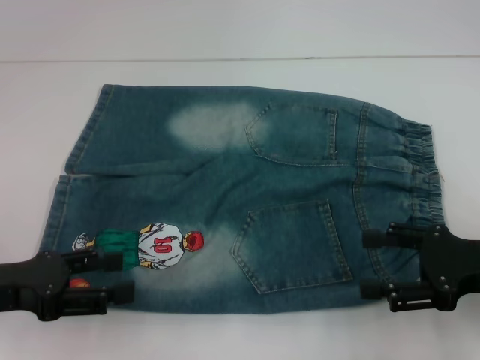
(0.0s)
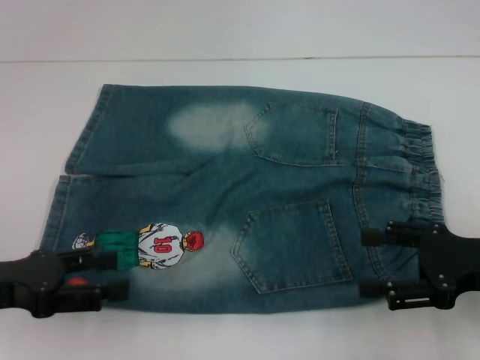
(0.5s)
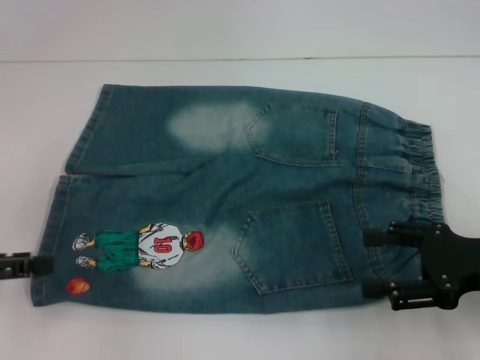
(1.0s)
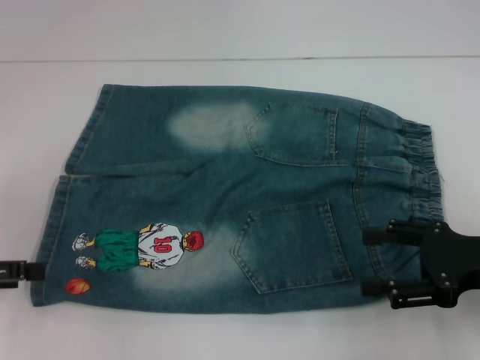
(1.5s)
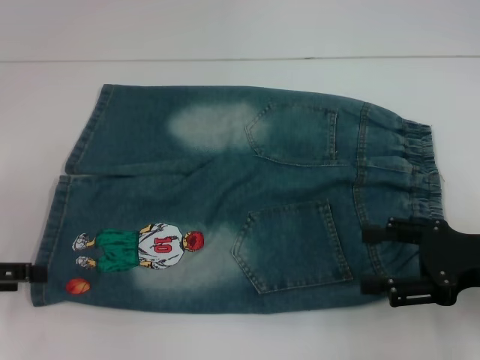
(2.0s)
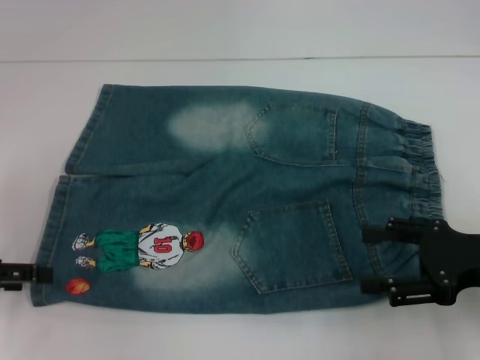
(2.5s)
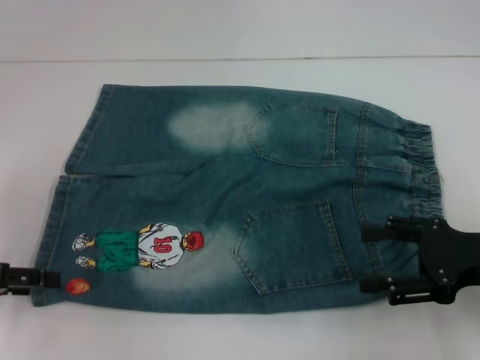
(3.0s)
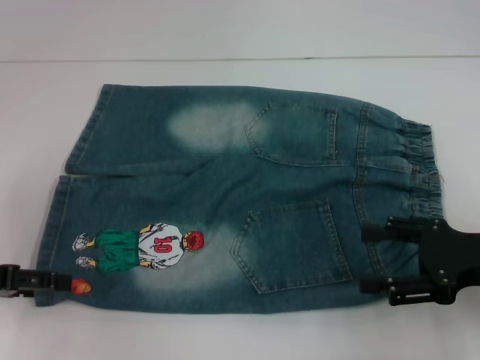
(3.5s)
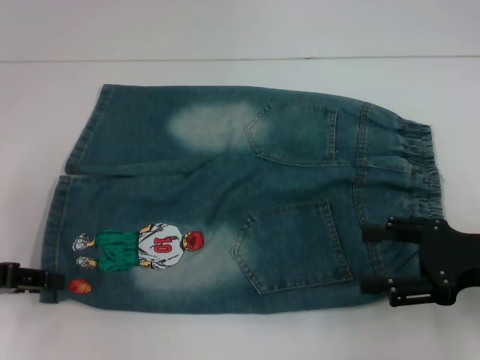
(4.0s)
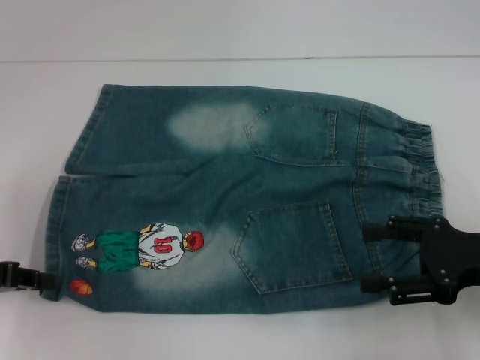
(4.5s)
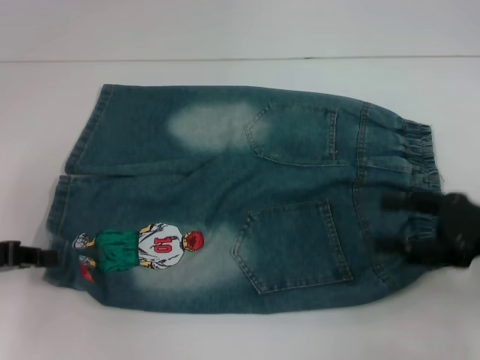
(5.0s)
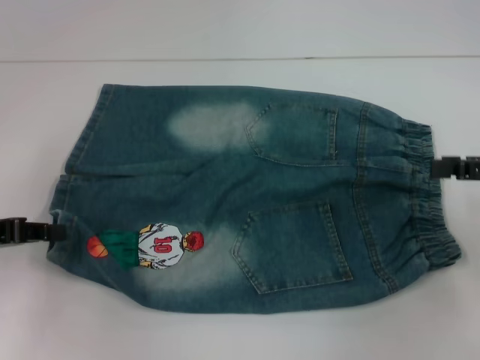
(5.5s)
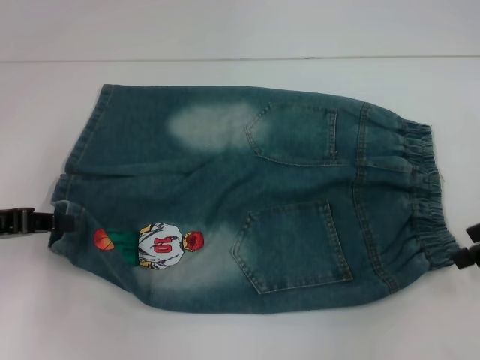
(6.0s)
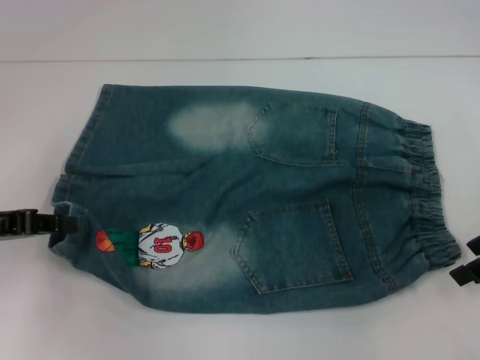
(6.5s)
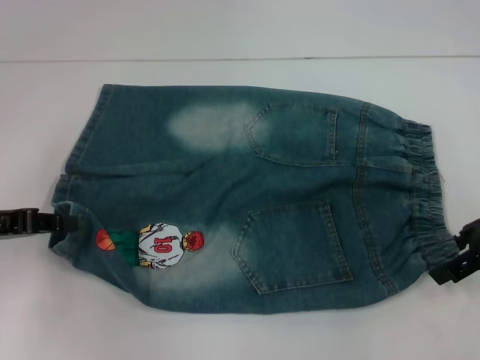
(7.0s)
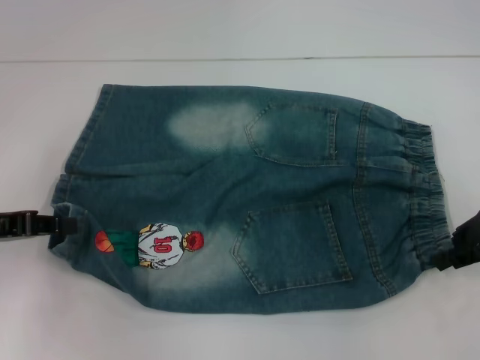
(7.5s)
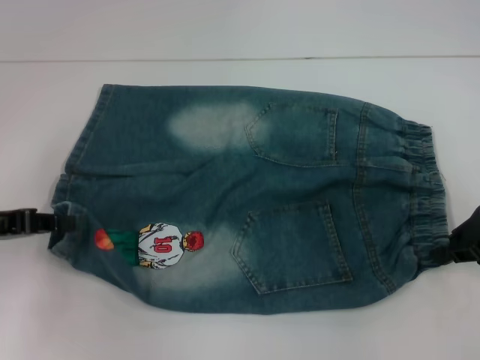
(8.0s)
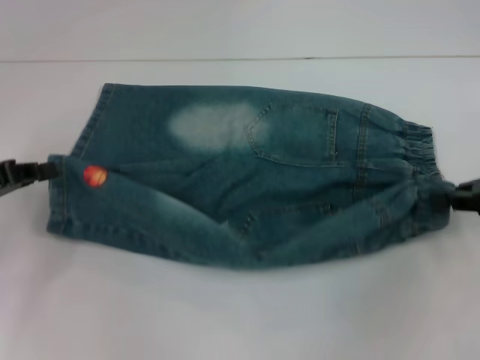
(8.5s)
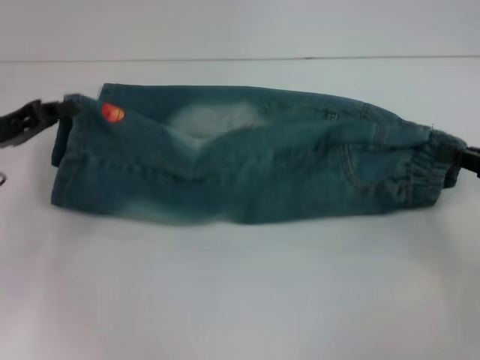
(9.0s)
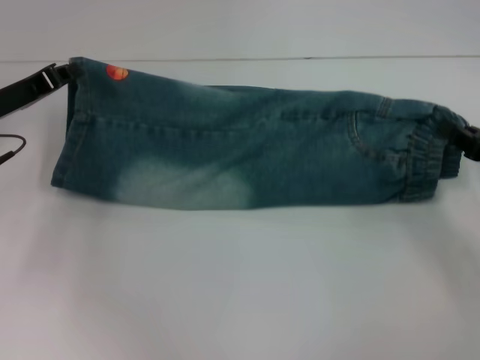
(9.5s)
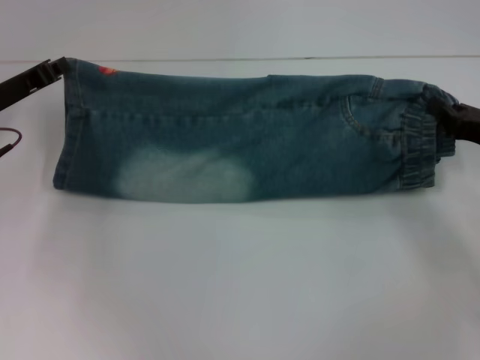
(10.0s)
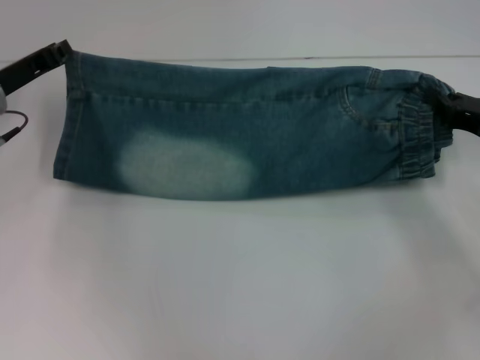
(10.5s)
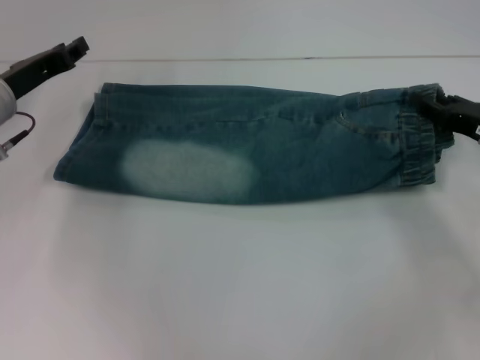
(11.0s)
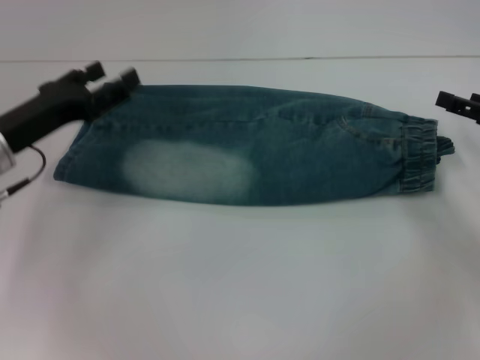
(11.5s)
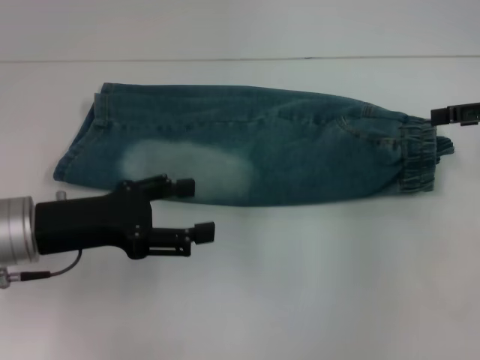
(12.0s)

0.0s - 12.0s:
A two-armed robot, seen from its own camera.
Step, 0.0s - 4.5s: Grab the lower left pant leg with your left hand.
Step, 5.0s - 7.5s: Hold the lower right waistband with your right hand.
Step, 8.5s - 10.5s: Fold upward with your left hand.
0.0s - 2.0s: The left gripper is displaced to the left by approximately 5 cm.
4.0s - 6.0s: The left gripper closes up. The right gripper travels forward, to the right and upward by about 10 cm.
6.0s - 8.0s: The right gripper closes.
8.0s - 10.0s: The right gripper heads downward, covering approximately 5 cm. Meanwhile the left gripper travels forward by approximately 10 cm.
10.0s - 12.0s: The left gripper shifts some 10 cm backward and to the right, and opens. The right gripper moves upward, approximately 10 cm, and opens its fingers.

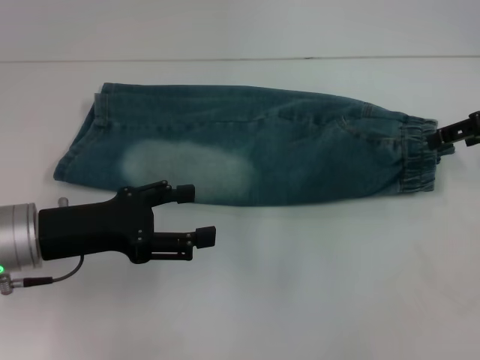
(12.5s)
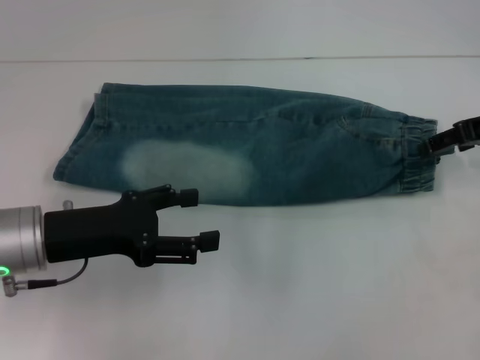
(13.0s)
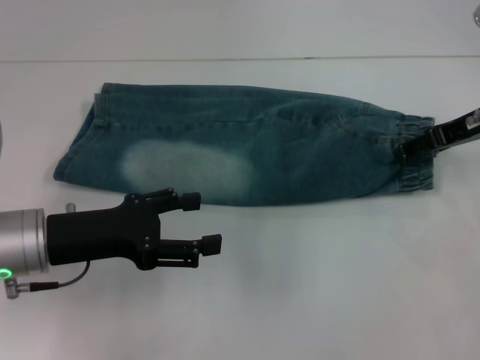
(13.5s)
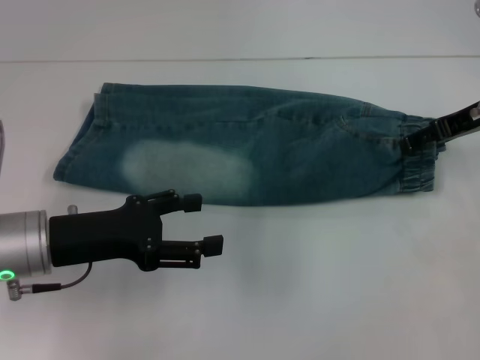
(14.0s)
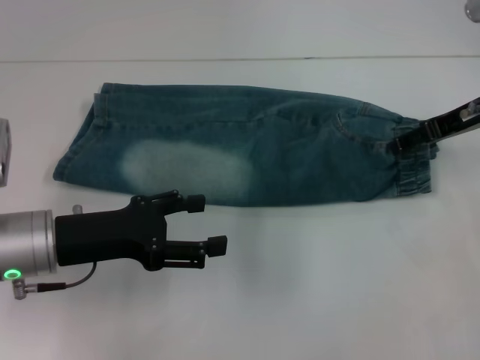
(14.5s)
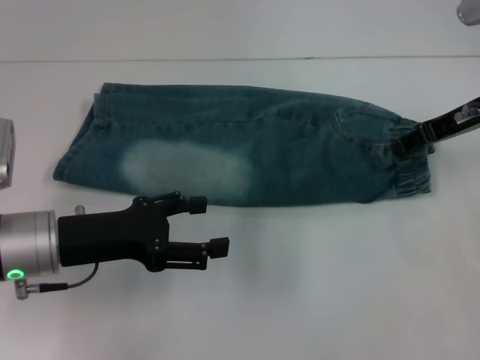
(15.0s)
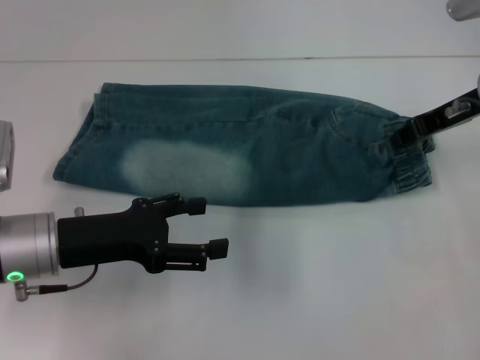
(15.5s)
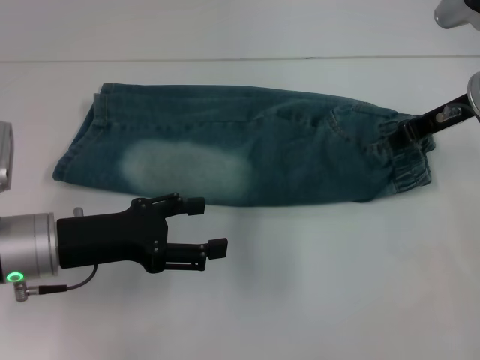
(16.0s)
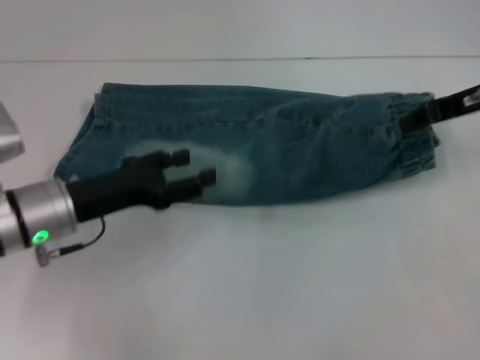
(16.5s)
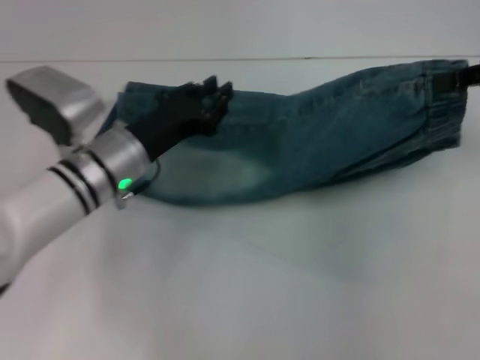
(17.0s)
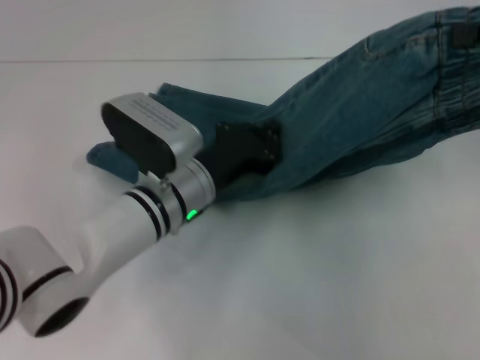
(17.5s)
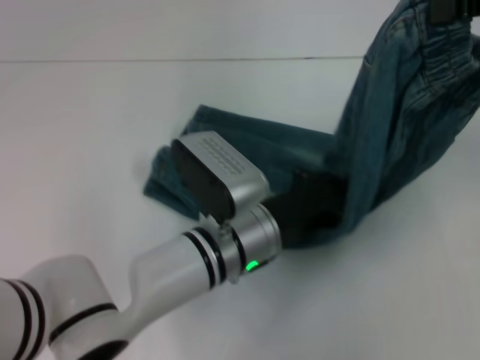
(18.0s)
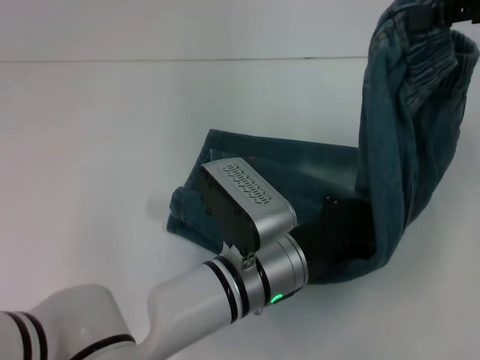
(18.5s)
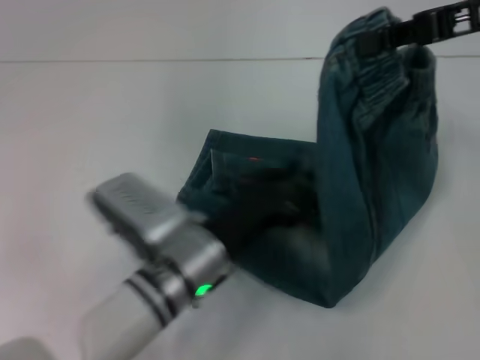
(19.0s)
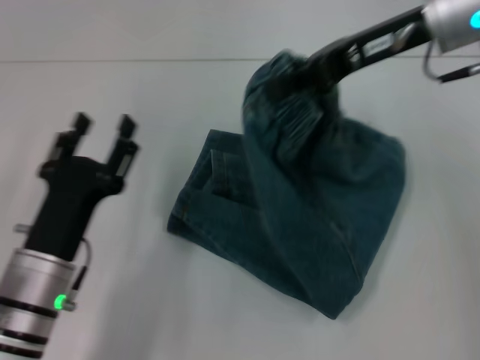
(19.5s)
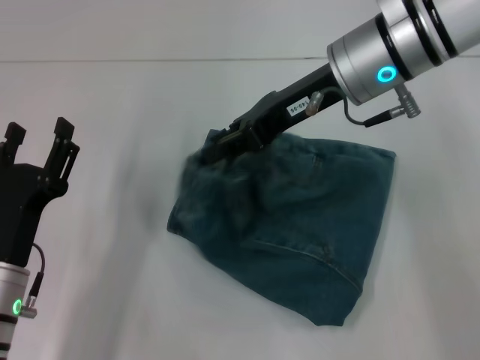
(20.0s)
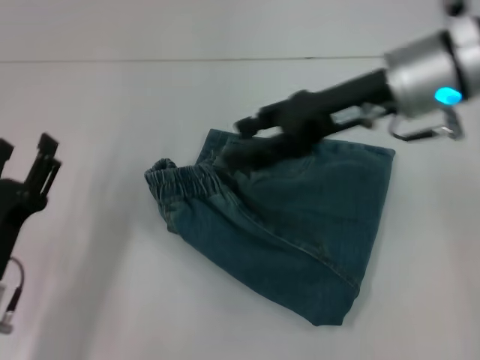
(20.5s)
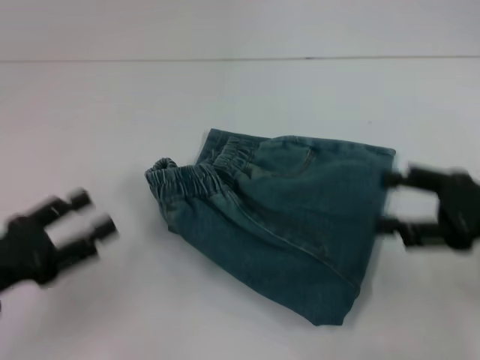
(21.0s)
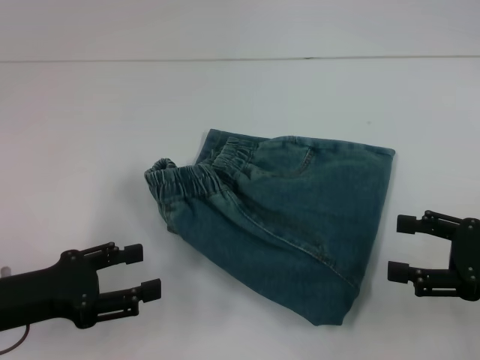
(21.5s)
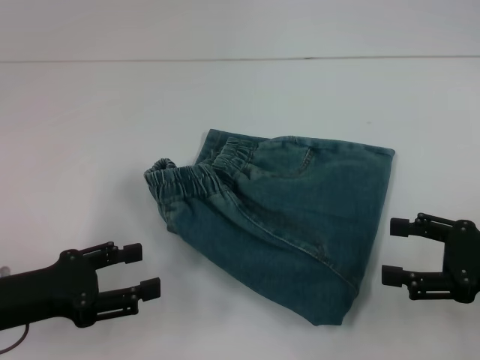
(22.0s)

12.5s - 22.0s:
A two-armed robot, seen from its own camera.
Step, 12.5s - 16.0s: Grab the waistband with your right hand.
Step, 16.5s - 18.5s: Press the middle of the pants with your left hand.
Step, 19.0s - 20.0s: Fold to the left with your right hand.
12.5s - 14.5s: The right gripper moves some 5 cm.
14.5s - 16.5s: The right gripper closes.
16.5s - 18.0s: The right gripper moves upward and backward, roughly 15 cm. Meanwhile the left gripper goes approximately 20 cm to the right, and closes up.
18.0s - 20.0s: Both grippers travel together to the left, about 20 cm. The left gripper opens.
20.0s - 22.0s: The right gripper travels to the right, backward and downward by some 30 cm, and opens its fingers, while the left gripper heads to the left, covering some 5 cm.

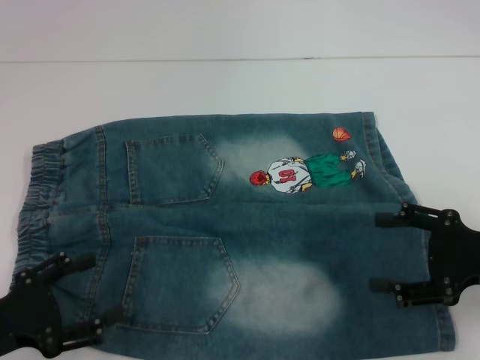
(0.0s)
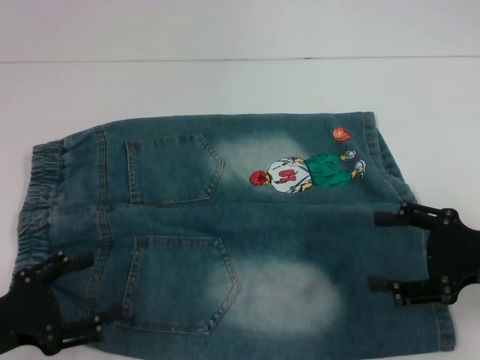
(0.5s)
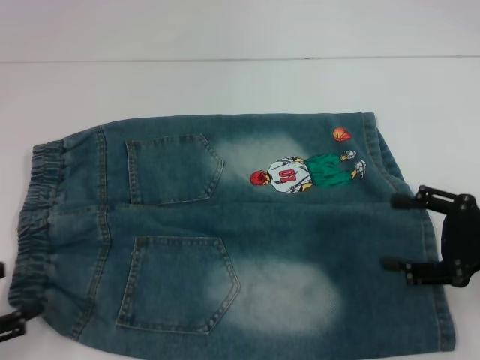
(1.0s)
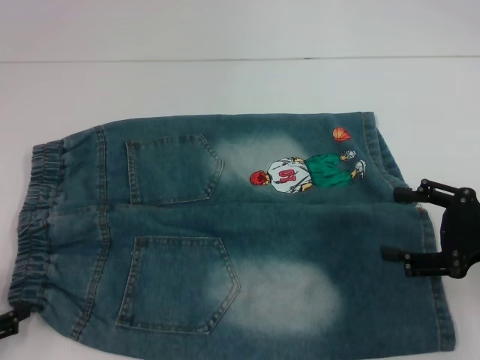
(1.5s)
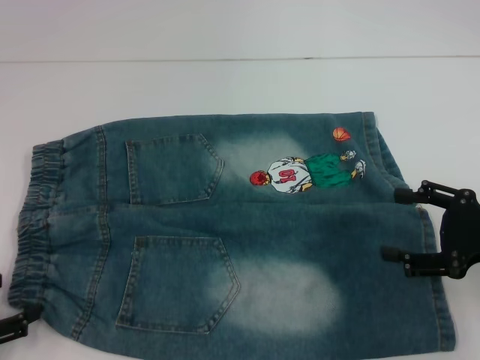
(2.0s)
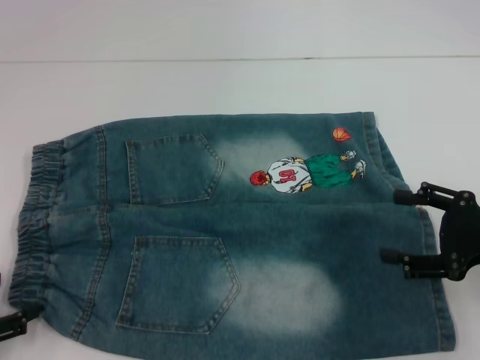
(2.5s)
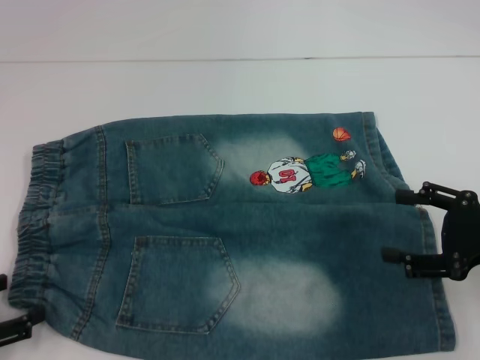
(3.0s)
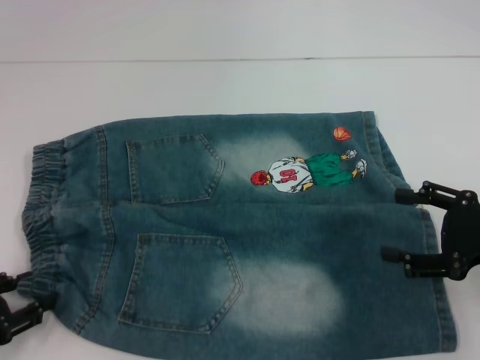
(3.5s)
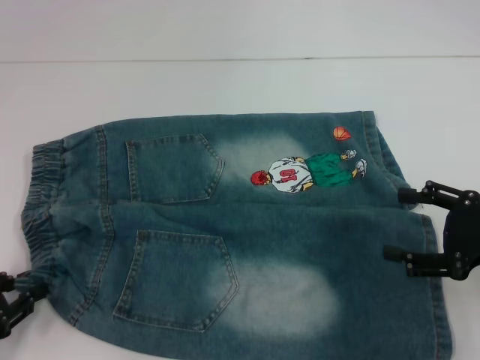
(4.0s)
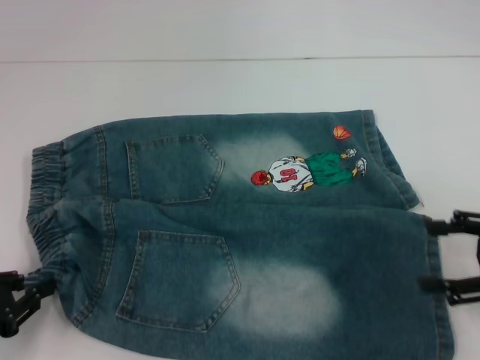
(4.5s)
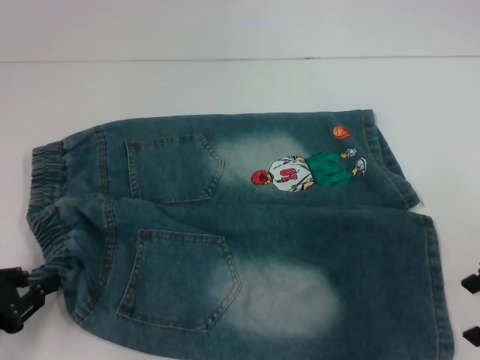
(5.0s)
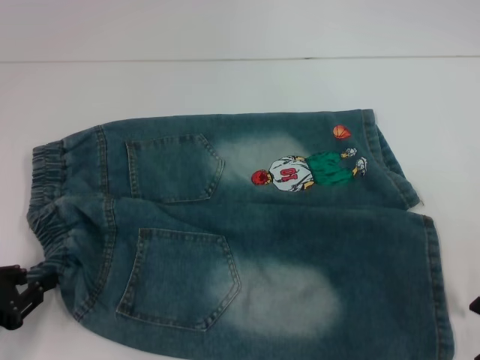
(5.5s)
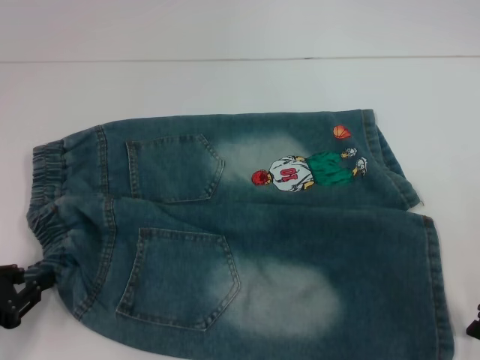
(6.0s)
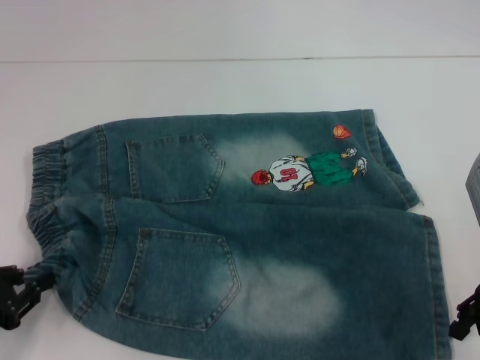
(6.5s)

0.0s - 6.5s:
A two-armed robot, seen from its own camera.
Step, 0.0s - 4.0s: Hold the lower left waistband with your left hand.
0.0s - 2.0s: The left gripper goes about 5 cm to the left.
2.0s - 4.5s: The left gripper closes up.
4.5s - 6.5s: The right gripper moves to the left, about 10 cm.
